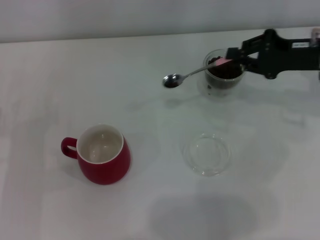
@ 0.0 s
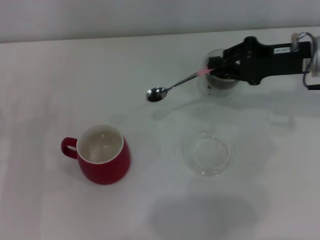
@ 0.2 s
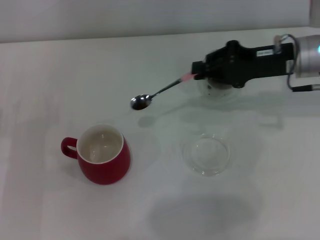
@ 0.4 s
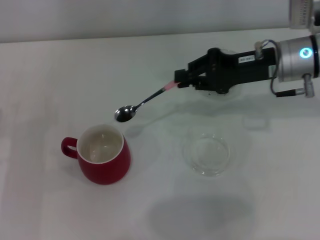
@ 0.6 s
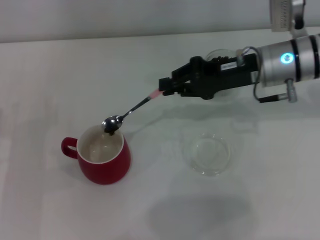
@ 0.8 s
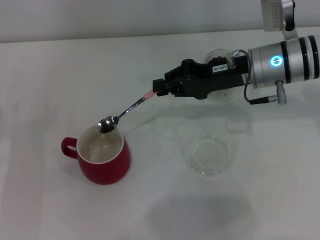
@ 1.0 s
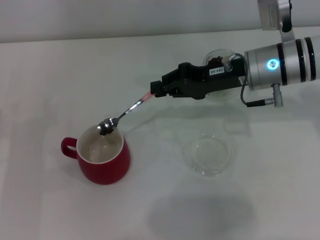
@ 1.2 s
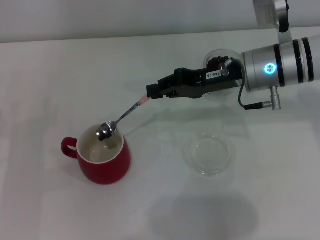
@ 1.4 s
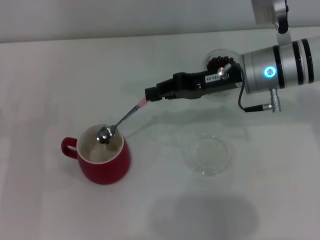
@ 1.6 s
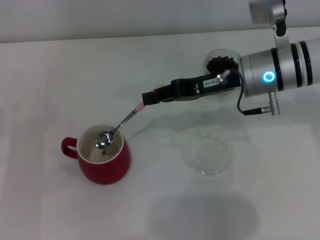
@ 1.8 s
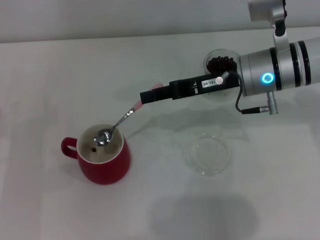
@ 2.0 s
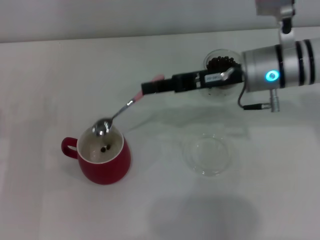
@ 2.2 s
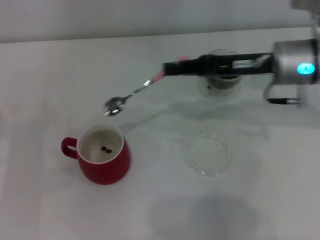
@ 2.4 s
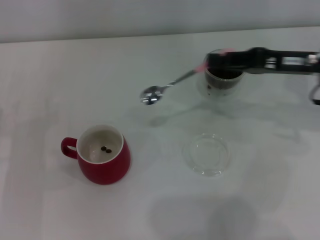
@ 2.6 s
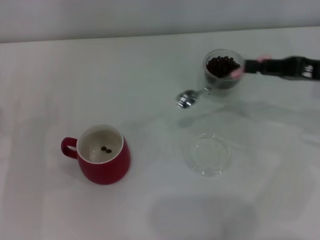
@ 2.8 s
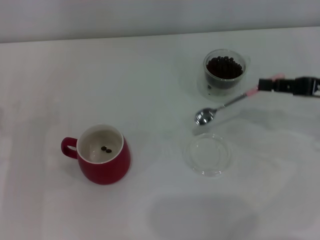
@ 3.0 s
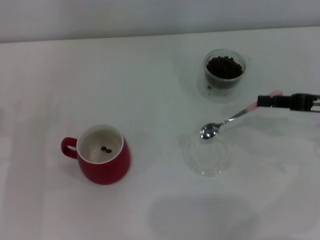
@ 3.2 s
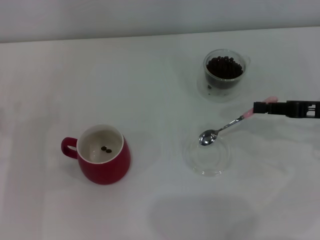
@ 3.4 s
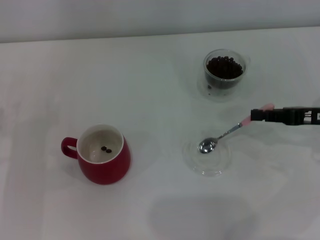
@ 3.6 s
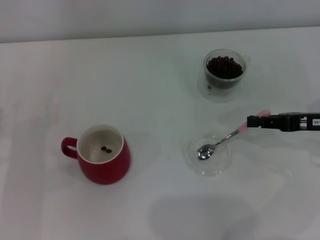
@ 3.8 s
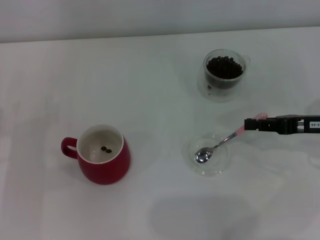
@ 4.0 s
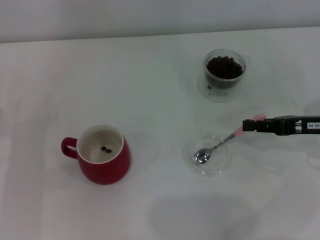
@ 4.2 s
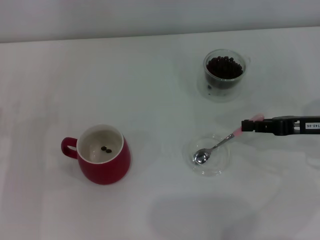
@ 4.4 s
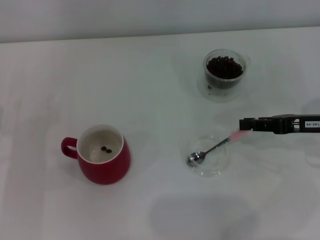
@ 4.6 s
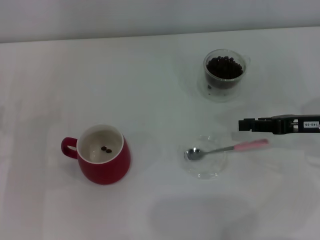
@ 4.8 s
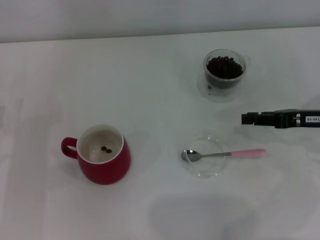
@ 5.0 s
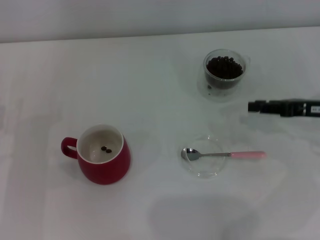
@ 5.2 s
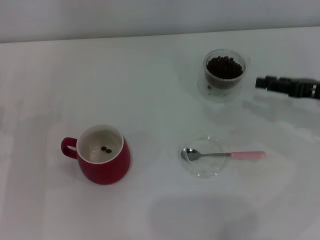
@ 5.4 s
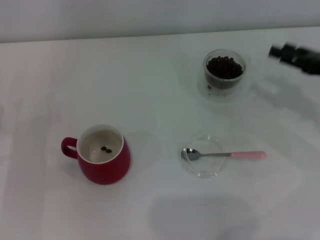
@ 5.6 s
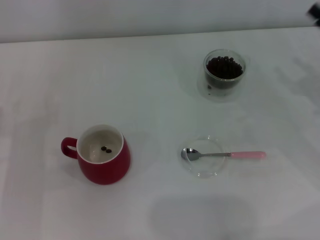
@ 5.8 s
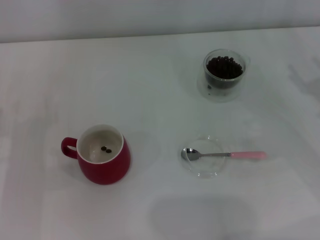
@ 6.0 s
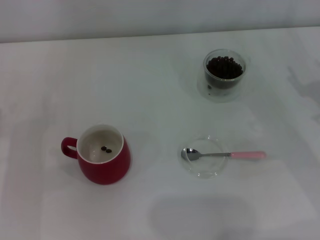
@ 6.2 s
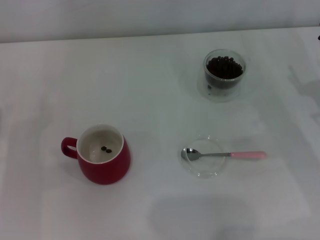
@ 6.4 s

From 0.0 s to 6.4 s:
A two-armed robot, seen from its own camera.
Task of the whole recording: Use a pink spoon to take out the coffee beans from the glass and pour them into the red cup.
Step, from 0.0 s to 2.2 s: Scoop a spoonful of beans into the cup with the right gripper.
Step, from 2.6 s to 4.8 s: Place the spoon back in its original place with the right gripper.
From 0.0 s to 1.6 s: The right gripper is displaced to the left by roughly 10 cm.
From 1.6 s to 3.2 s: The right gripper travels to the right and backward by about 20 cm.
From 3.2 s to 4.8 s: The grippers move only a little.
From 4.8 s to 6.4 s: The right gripper opens.
